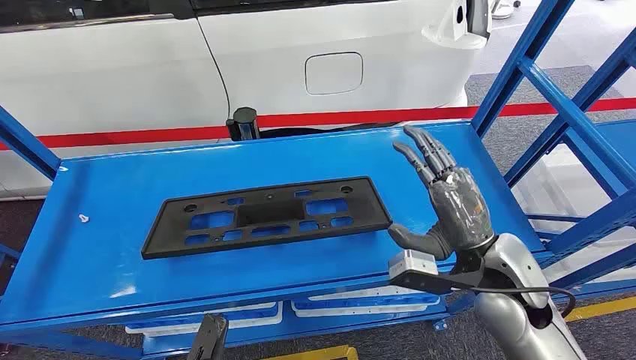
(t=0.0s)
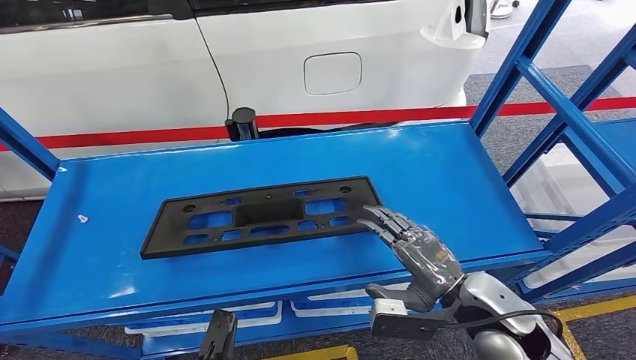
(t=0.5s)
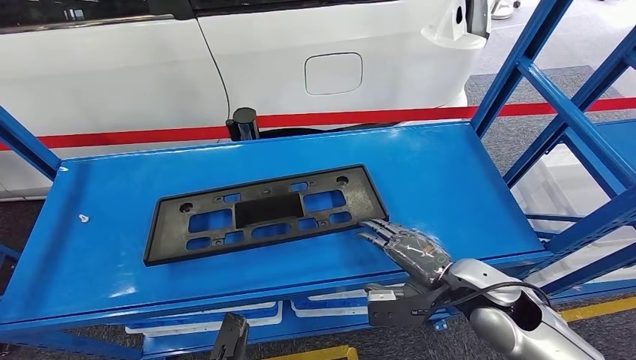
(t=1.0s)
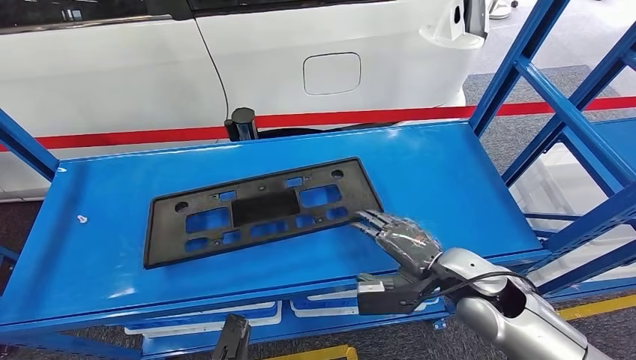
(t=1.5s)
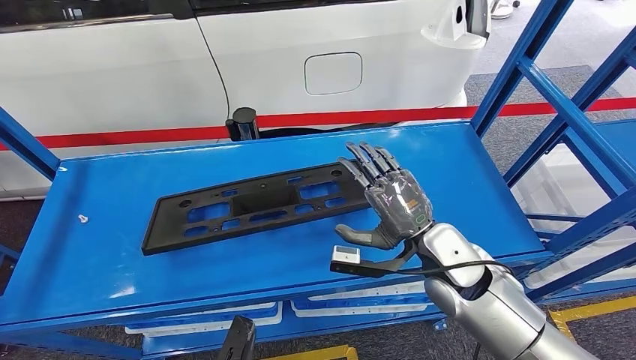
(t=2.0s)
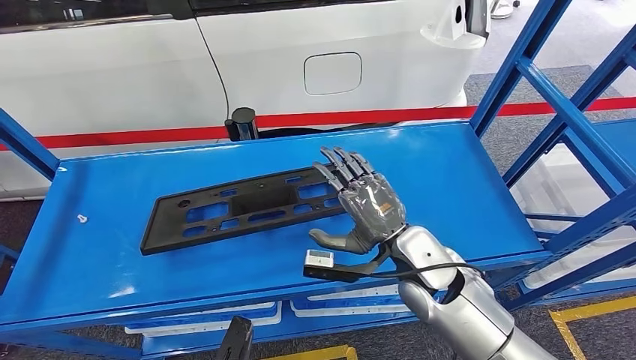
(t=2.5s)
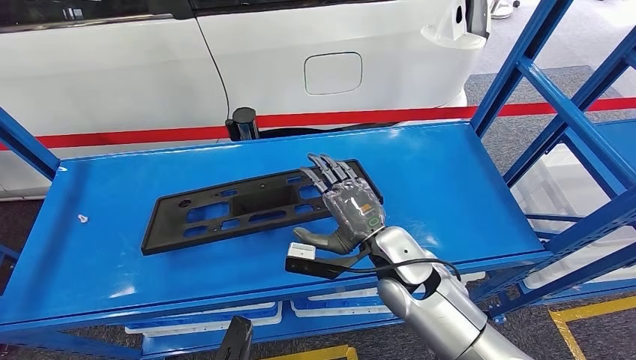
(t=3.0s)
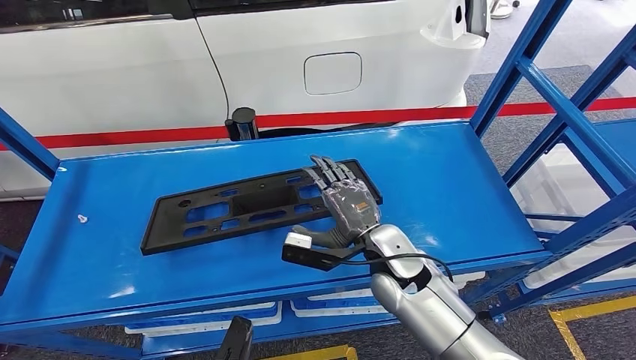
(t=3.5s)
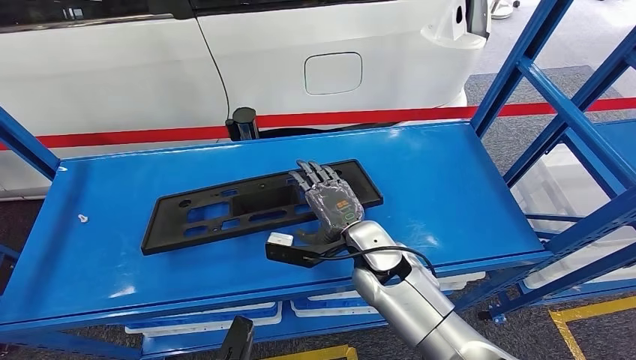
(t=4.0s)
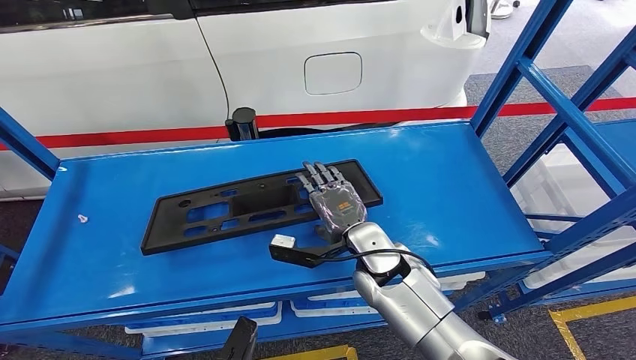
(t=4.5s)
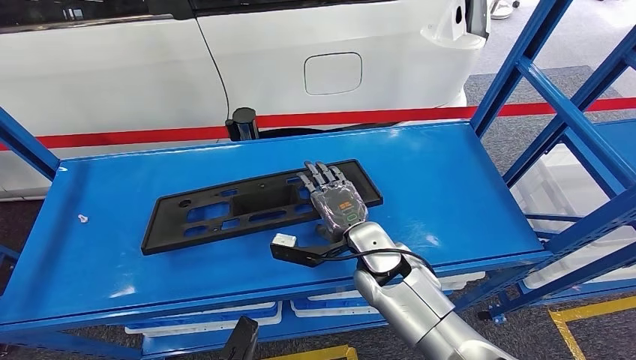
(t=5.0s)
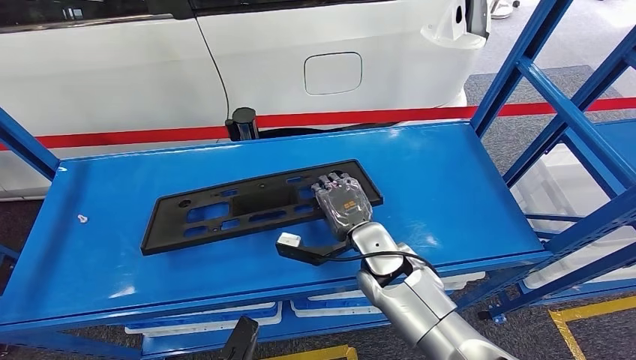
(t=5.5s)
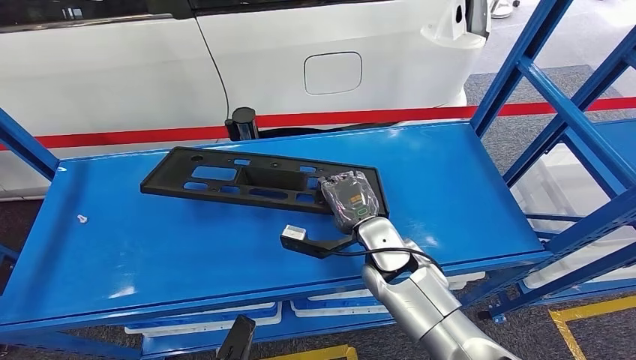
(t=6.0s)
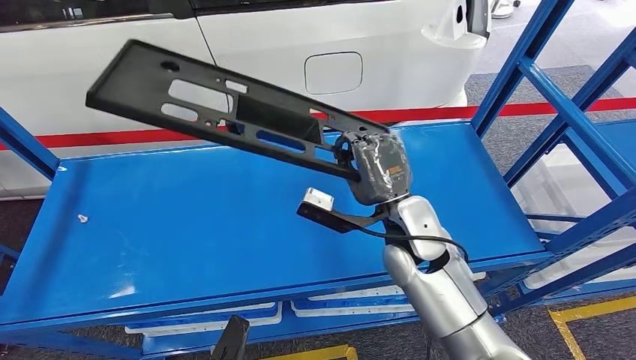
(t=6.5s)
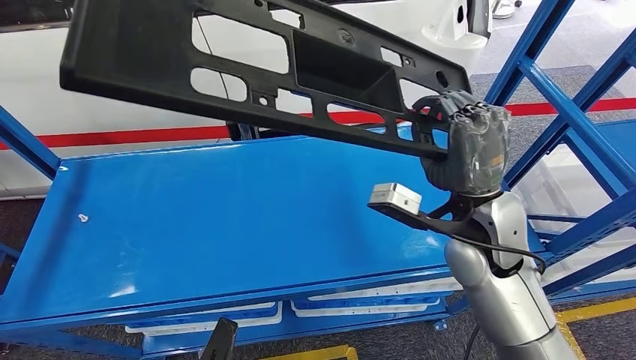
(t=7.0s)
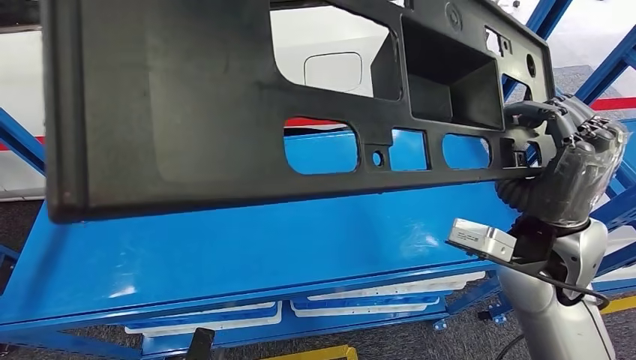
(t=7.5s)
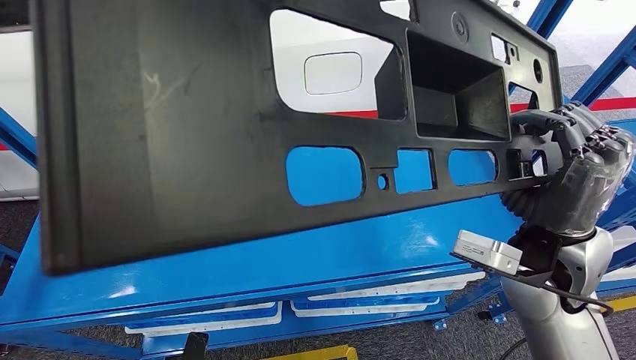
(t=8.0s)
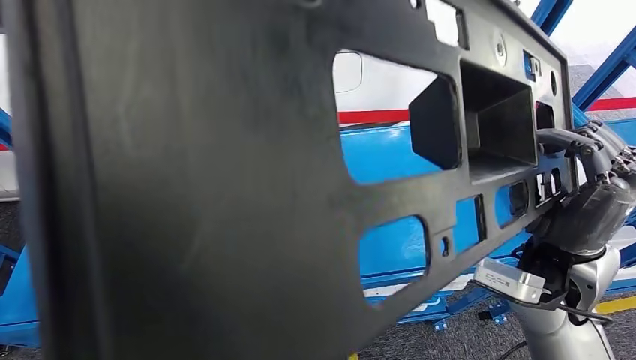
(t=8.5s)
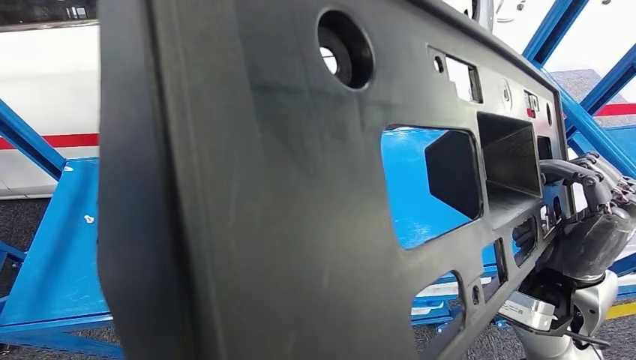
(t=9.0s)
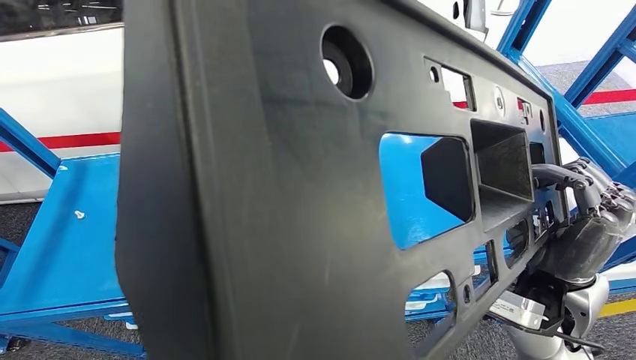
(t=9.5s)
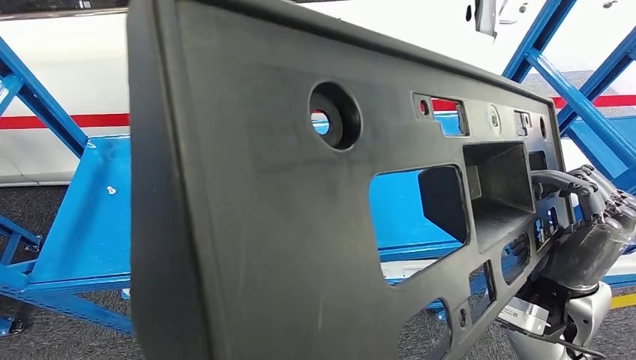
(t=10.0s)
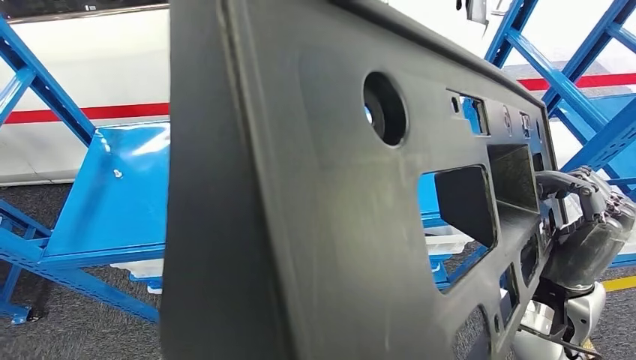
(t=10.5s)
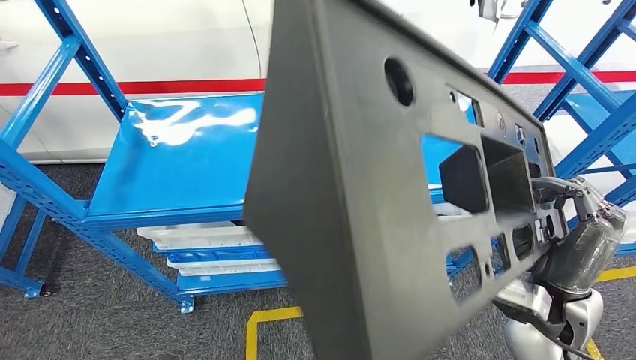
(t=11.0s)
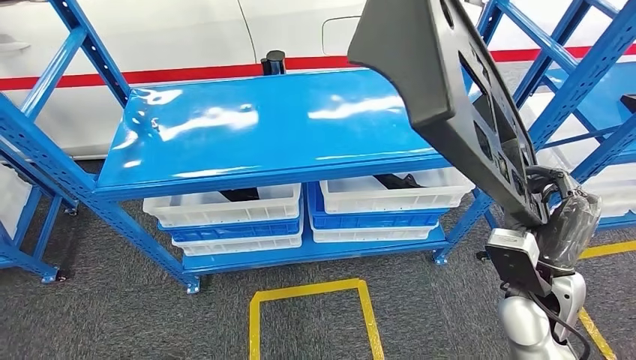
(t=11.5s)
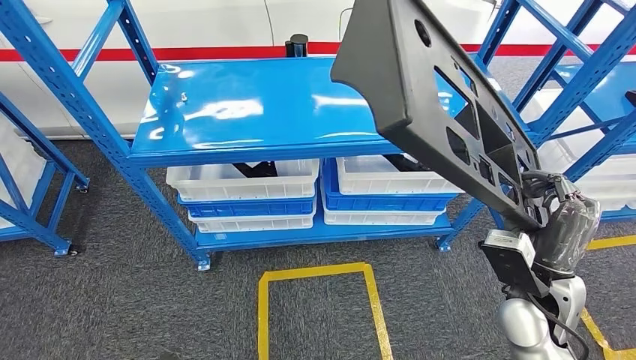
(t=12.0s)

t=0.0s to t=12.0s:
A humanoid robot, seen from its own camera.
Step, t=0.0s to t=7.0s: Pick up the large material from the shelf.
t=2.0s to t=4.0s: The right hand heads to the left, covering about 10 cm.
t=4.0s to t=6.0s: The hands stay close to where they were, moving slightly.

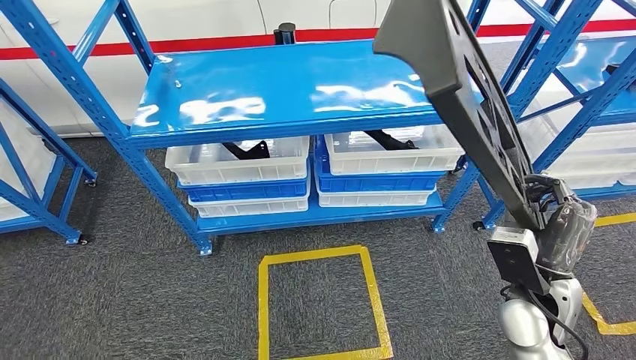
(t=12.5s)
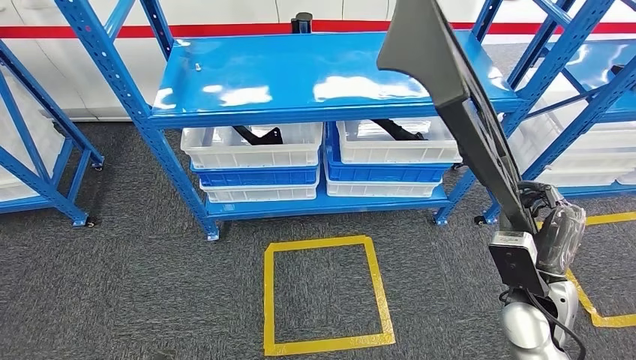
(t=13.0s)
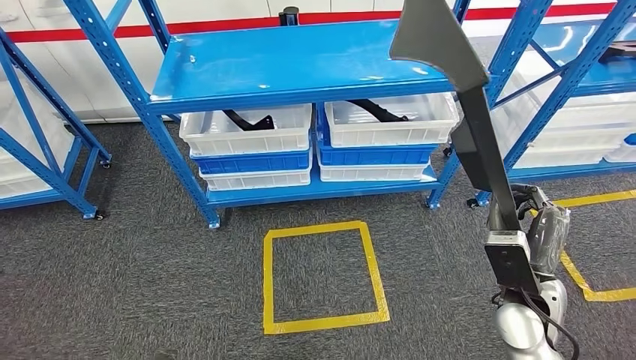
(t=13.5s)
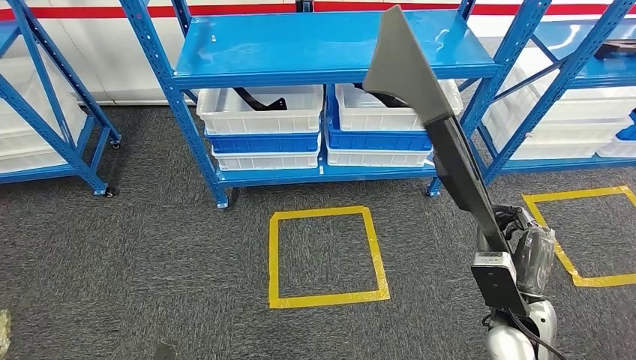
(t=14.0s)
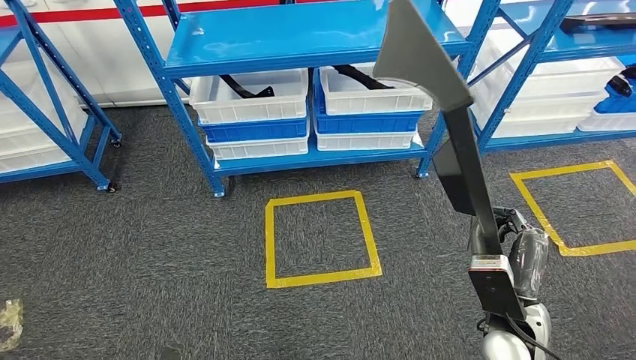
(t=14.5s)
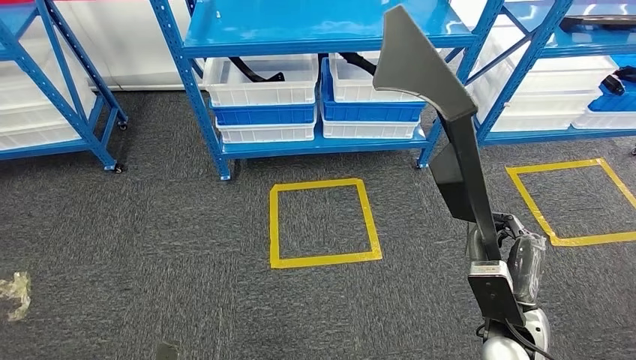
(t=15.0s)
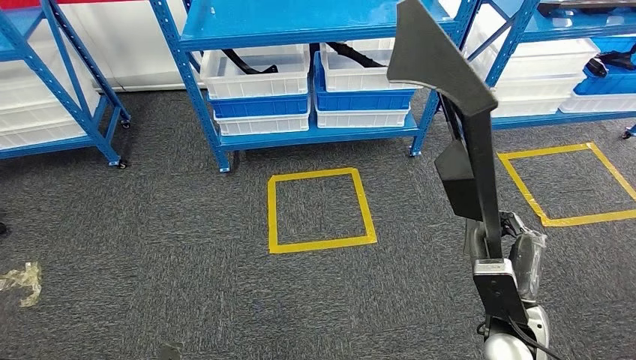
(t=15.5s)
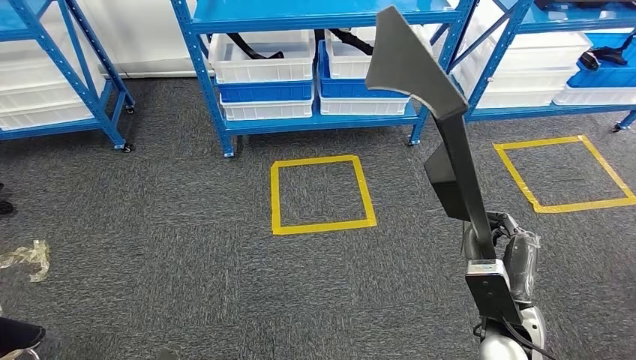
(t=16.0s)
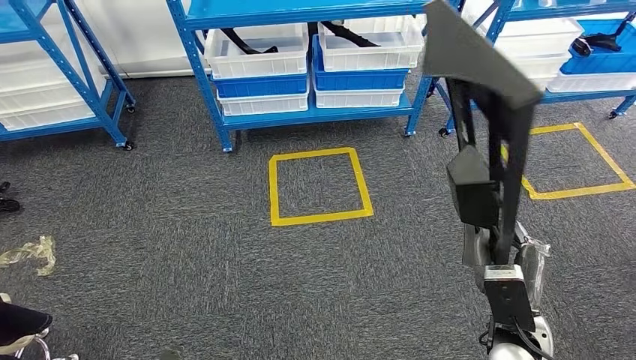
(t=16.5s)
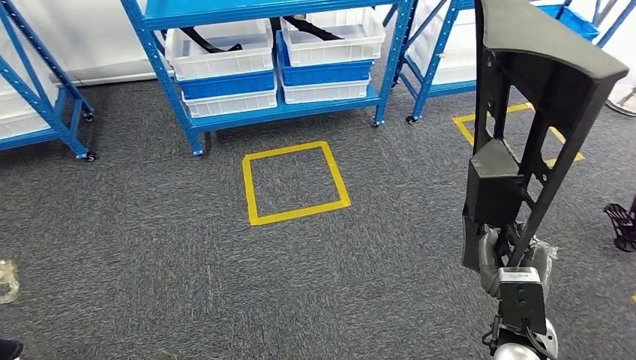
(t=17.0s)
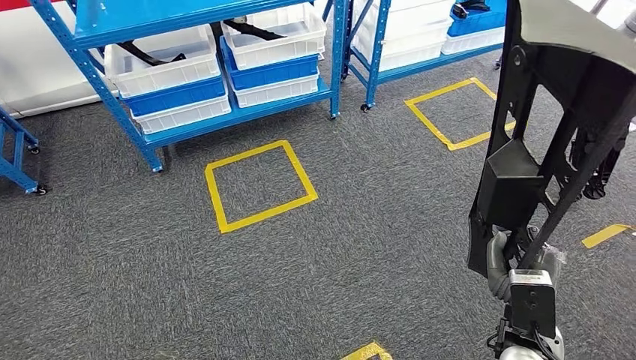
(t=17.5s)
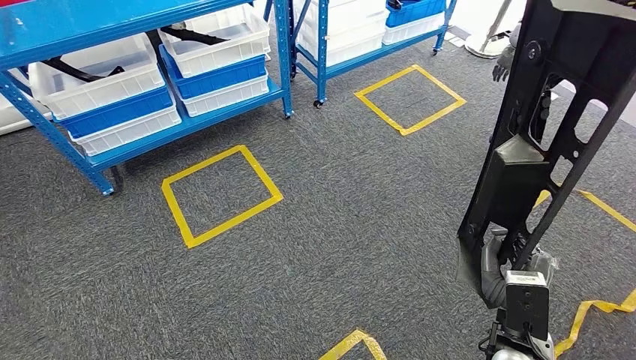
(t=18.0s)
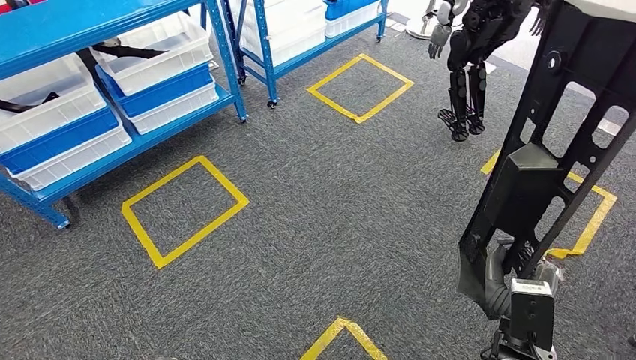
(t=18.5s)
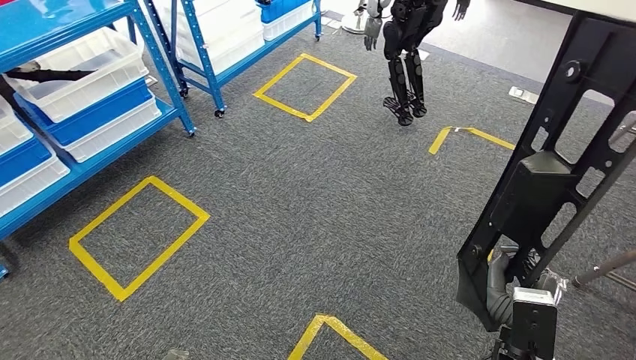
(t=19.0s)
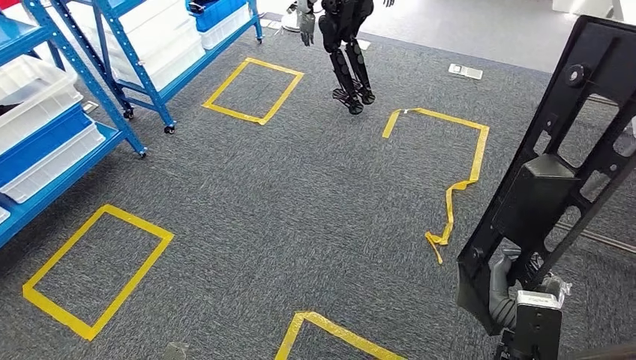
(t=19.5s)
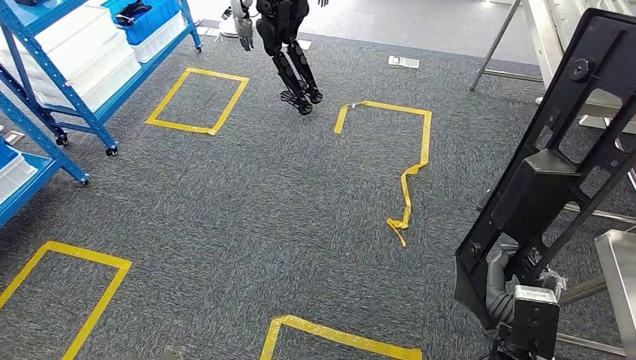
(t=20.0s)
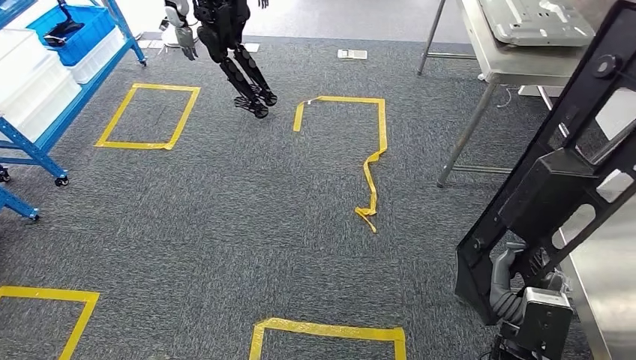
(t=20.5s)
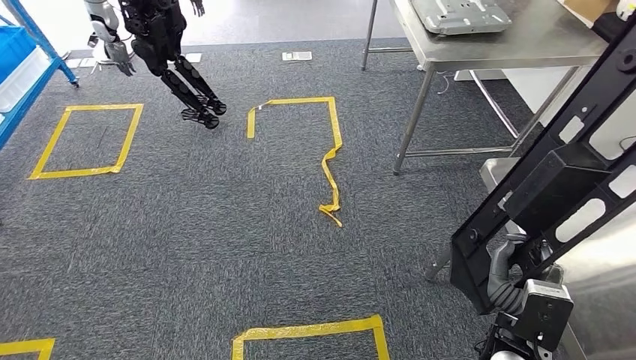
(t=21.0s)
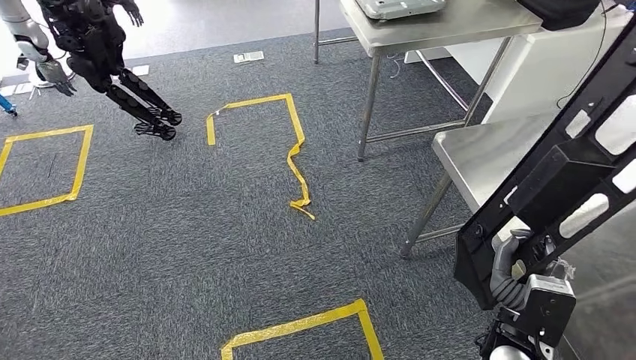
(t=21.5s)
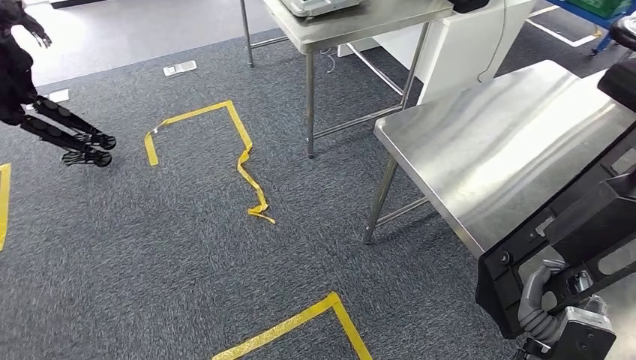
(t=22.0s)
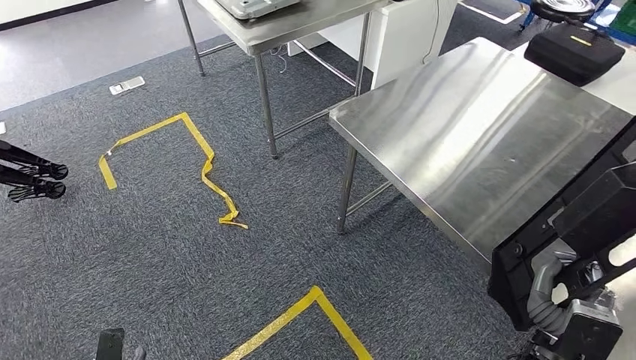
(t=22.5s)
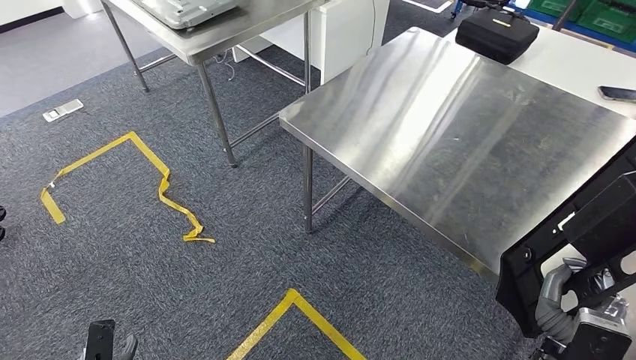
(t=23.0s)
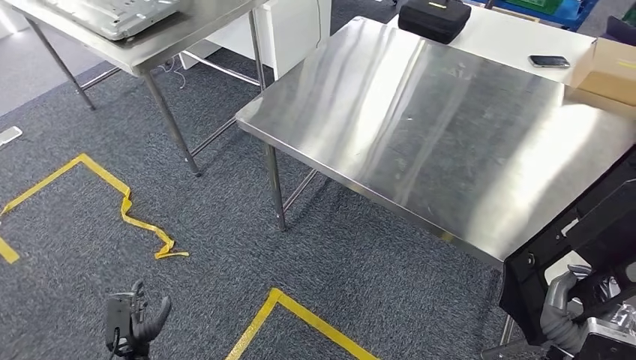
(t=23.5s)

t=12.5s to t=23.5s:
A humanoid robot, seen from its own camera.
Step, t=12.5s to t=20.5s: Move the large material to the workbench.
